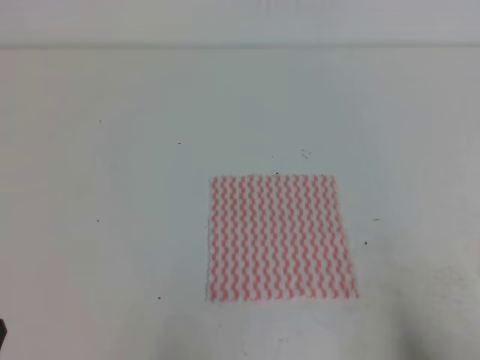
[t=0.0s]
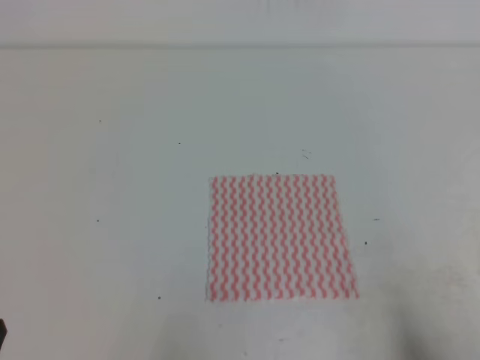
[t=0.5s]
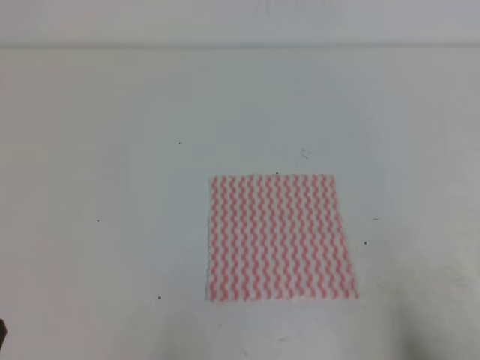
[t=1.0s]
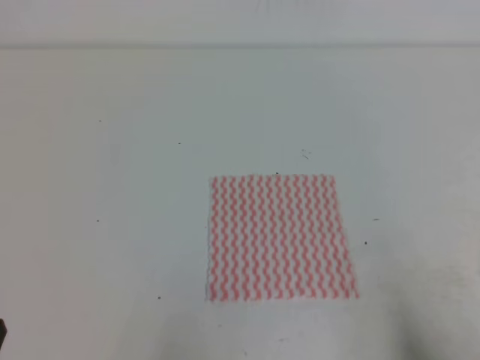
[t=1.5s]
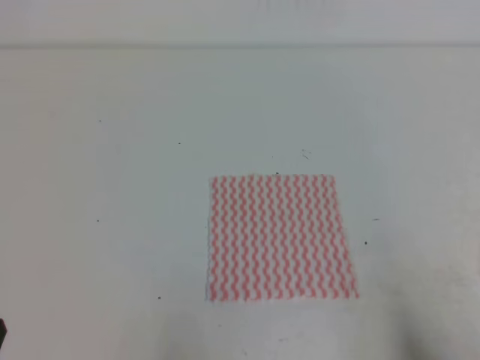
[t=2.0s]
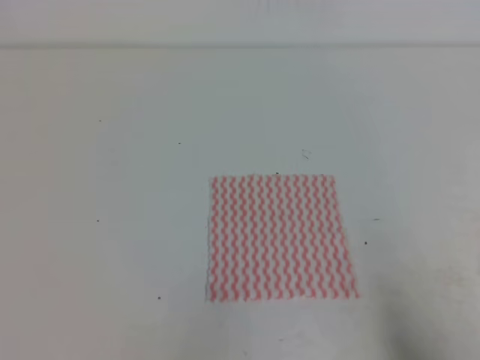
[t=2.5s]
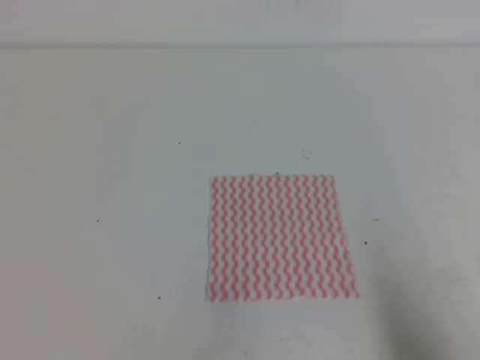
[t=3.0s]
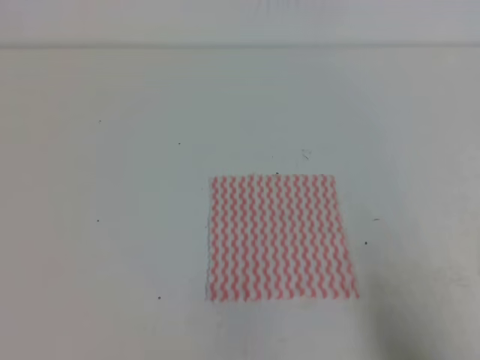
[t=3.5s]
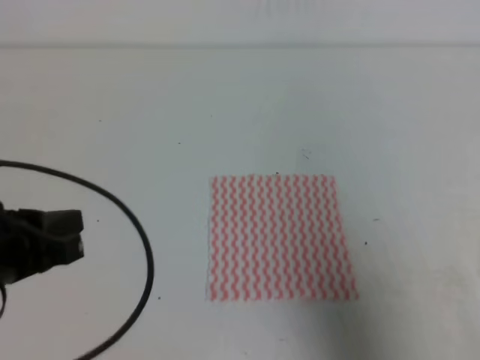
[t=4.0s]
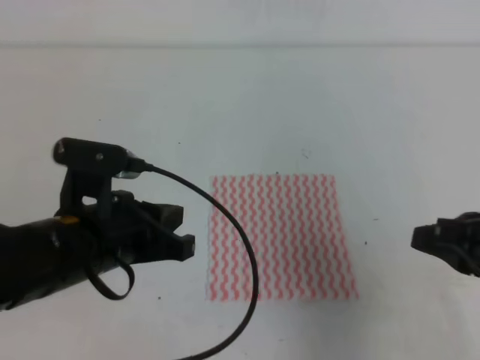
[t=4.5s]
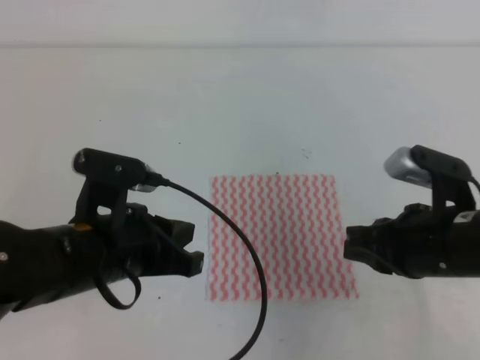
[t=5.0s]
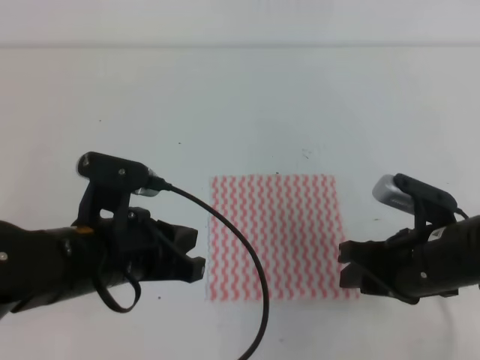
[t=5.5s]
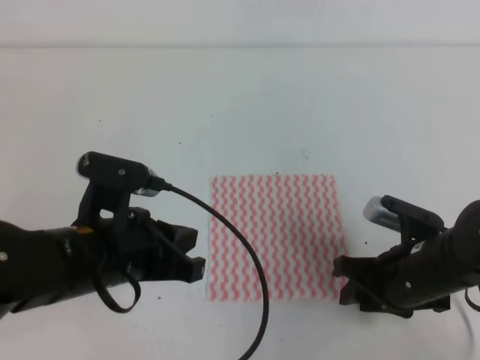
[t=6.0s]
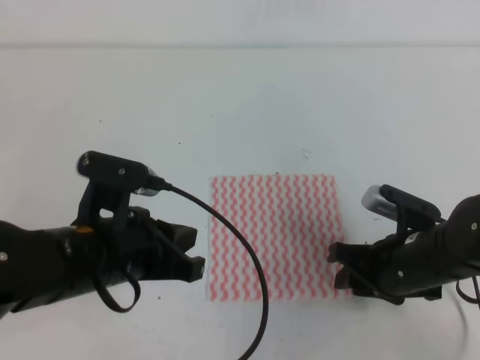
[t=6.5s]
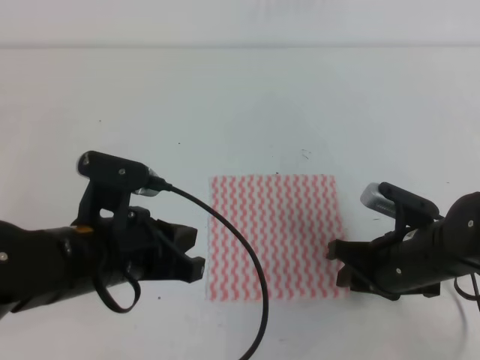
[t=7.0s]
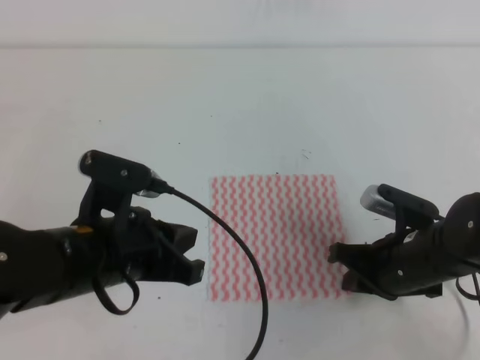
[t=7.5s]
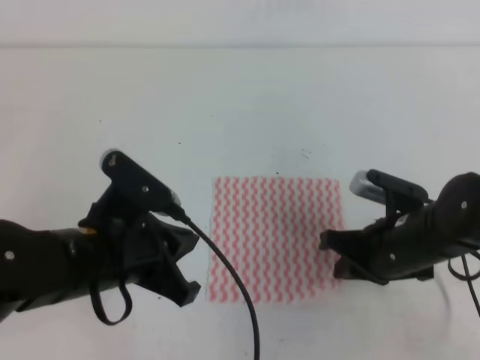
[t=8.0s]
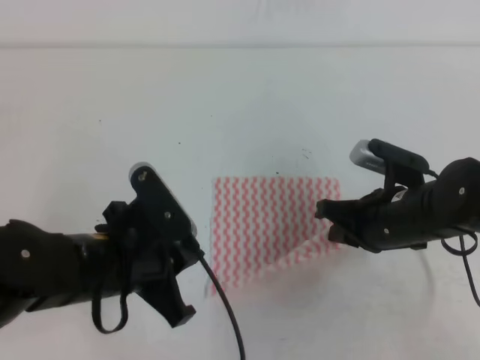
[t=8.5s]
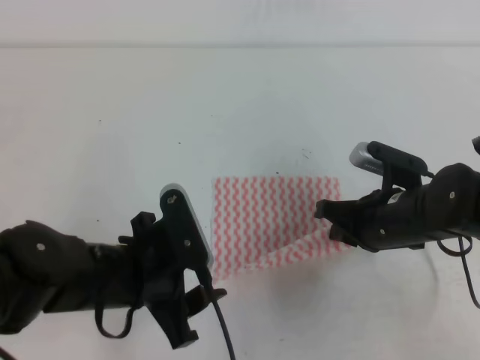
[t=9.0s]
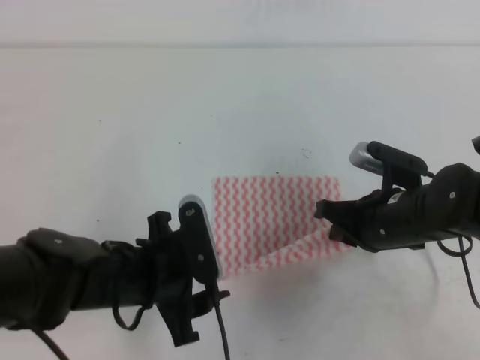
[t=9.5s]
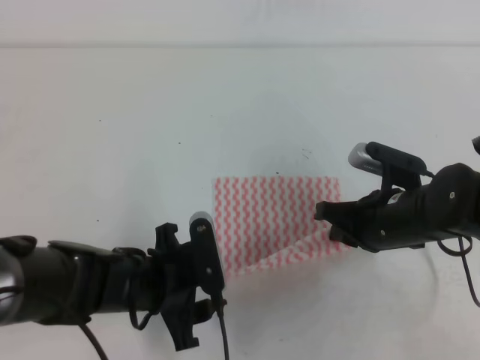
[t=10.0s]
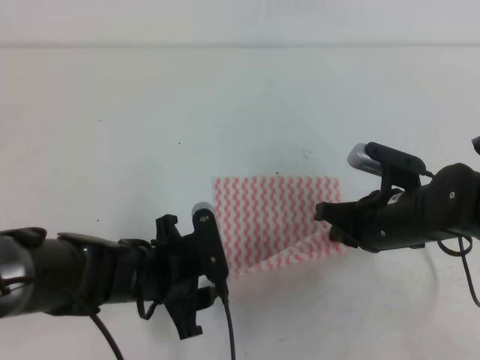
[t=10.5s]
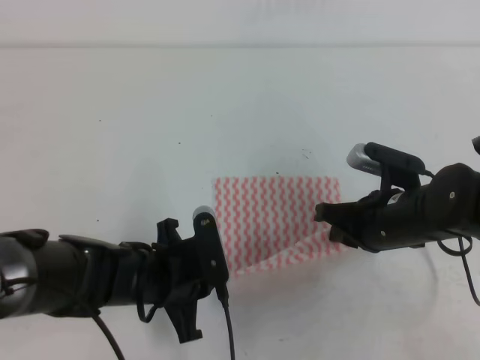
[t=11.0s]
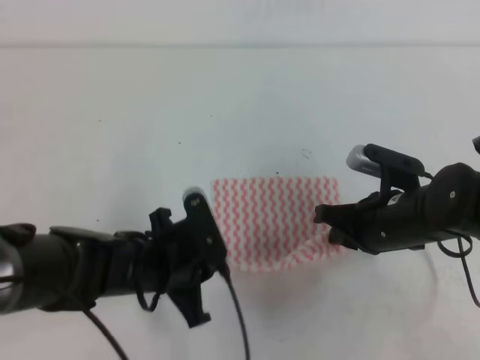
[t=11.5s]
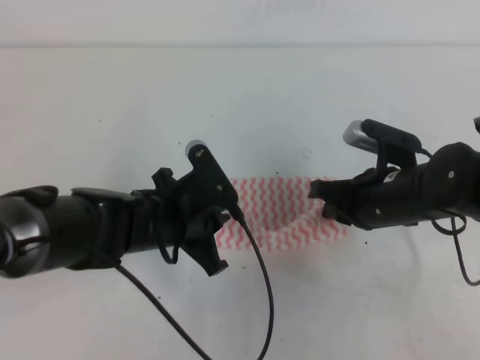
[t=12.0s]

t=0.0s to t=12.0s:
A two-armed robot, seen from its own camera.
t=0.0s to t=2.0s: Both grippers stay put.
t=2.0s to t=4.0s: The left gripper shifts about 15 cm forward and upward; the right gripper goes approximately 10 cm upward and forward.
t=4.0s to t=6.0s: The left gripper moves to the right, approximately 10 cm. The right gripper travels forward, downward and to the left by about 20 cm, and opens its fingers.
t=6.0s to t=8.0s: The right gripper closes up.
t=8.0s to t=10.0s: The left gripper heads downward, covering some 10 cm, and opens up.
t=10.0s to t=12.0s: The left gripper shifts by roughly 5 cm, and closes.

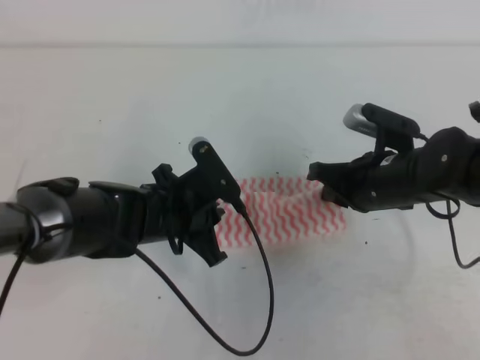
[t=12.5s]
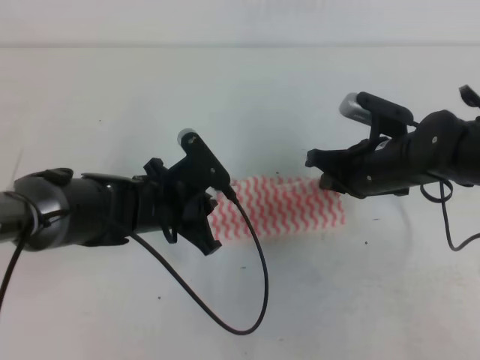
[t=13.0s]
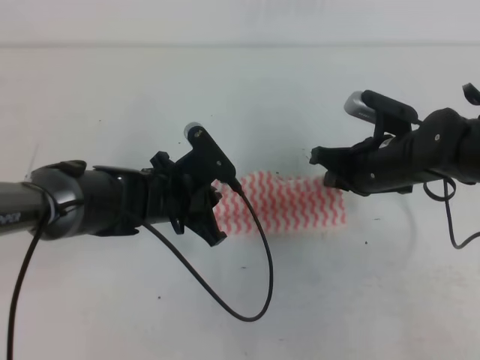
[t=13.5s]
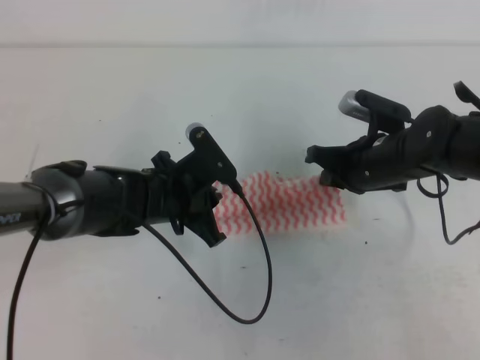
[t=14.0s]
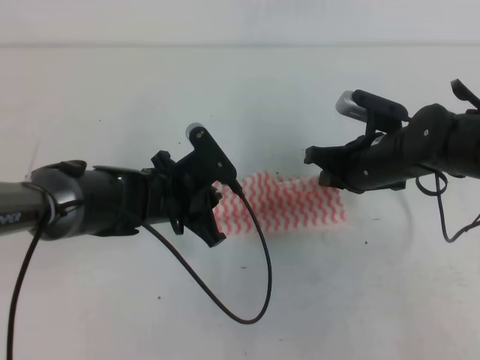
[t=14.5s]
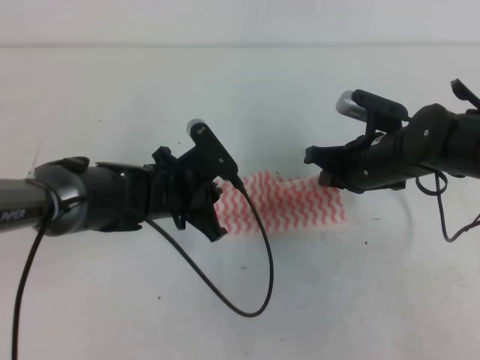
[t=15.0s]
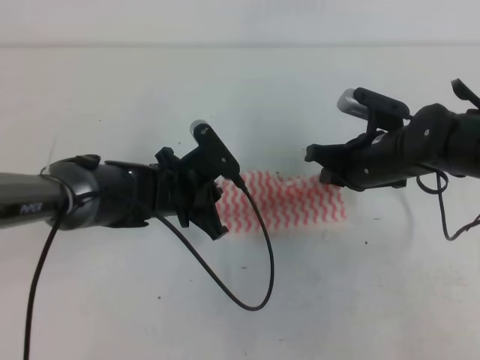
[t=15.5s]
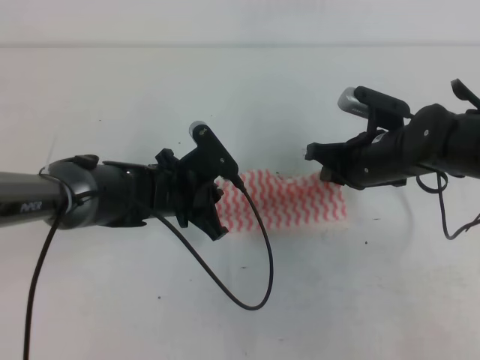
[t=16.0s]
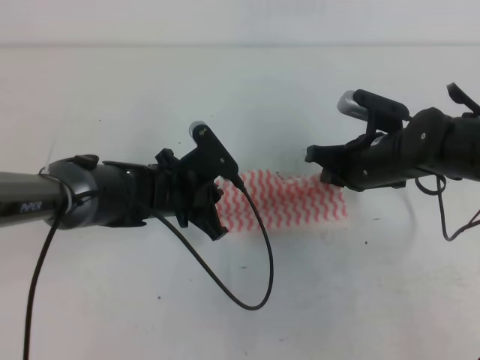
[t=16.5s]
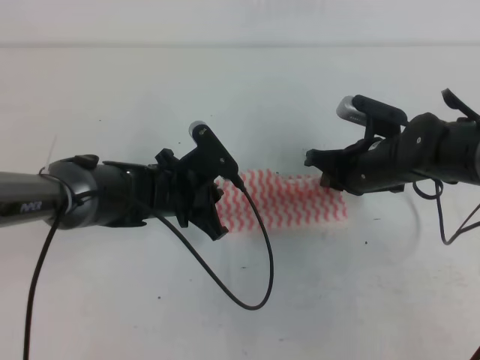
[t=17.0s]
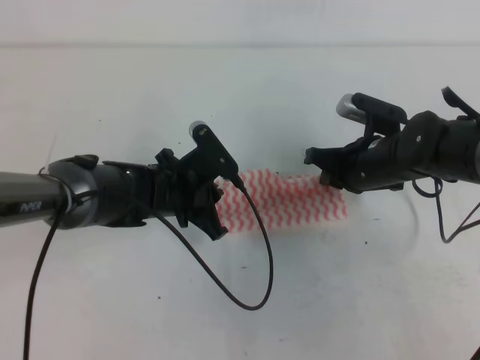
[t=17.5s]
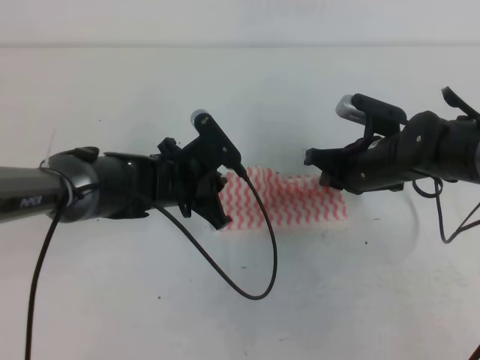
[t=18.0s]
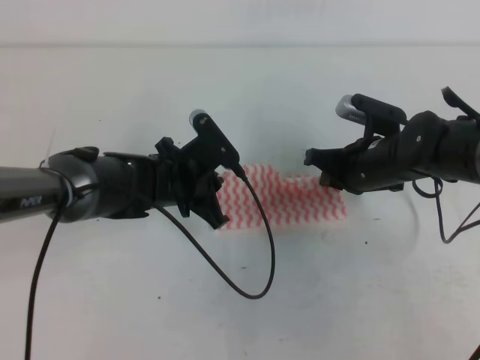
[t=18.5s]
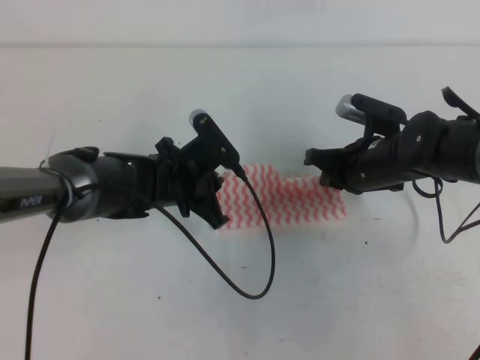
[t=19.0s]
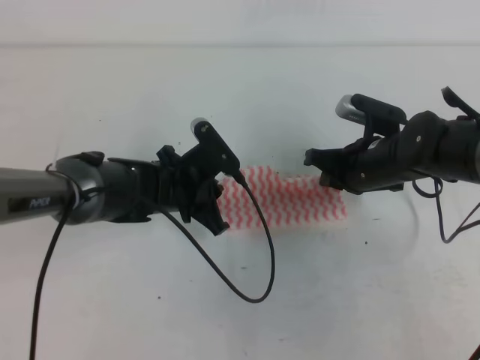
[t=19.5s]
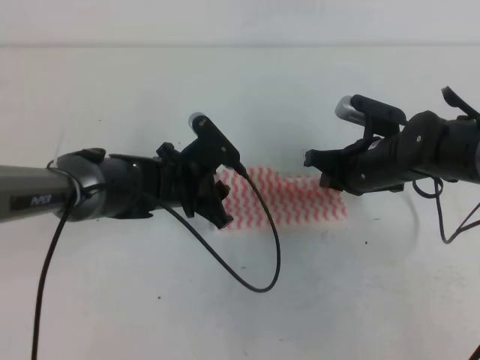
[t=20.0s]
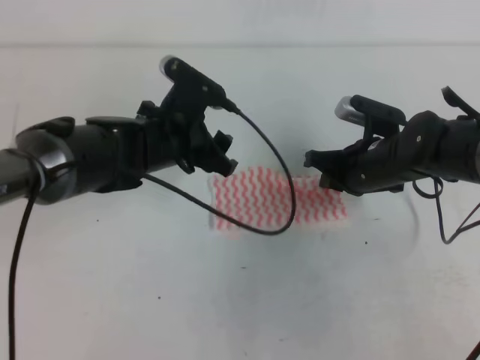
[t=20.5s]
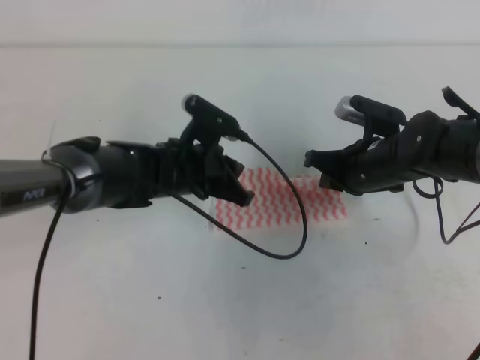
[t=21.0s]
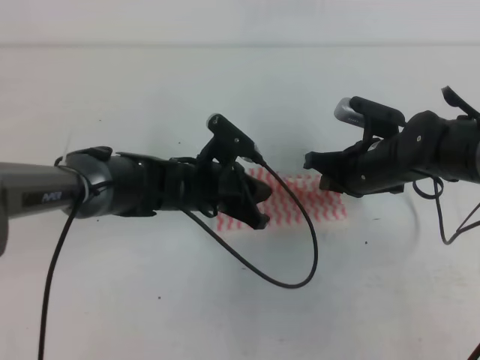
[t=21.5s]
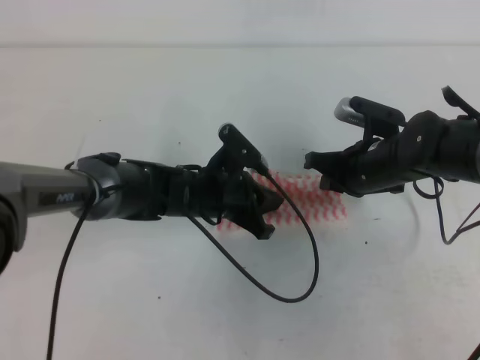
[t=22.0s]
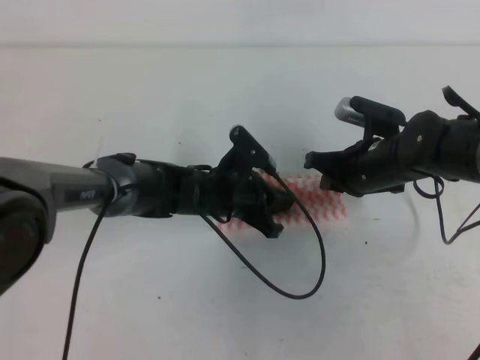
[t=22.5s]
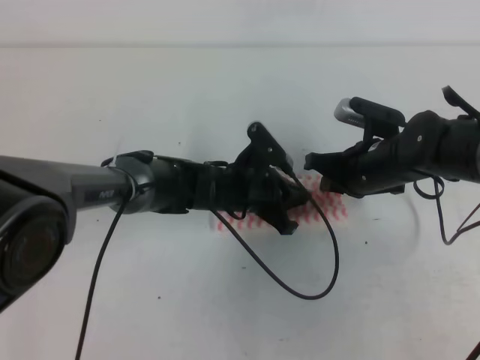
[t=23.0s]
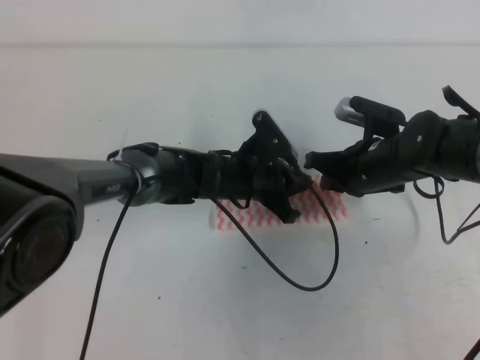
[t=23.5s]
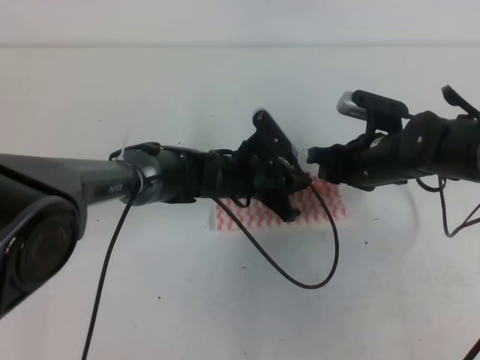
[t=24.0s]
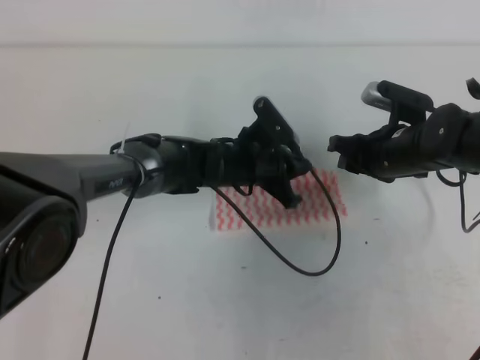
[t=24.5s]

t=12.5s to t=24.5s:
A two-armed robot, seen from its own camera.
t=12.5s to t=16.5s: The grippers stay close to where they were, moving slightly.
t=16.5s to t=18.5s: Both grippers stay put.
t=18.5s to t=20.5s: The left gripper opens up.
t=20.5s to t=22.5s: The left gripper moves downward and to the right, about 10 cm, and closes up.
t=22.5s to t=24.5s: The right gripper opens up.

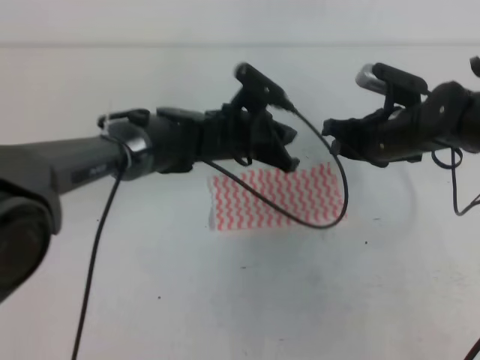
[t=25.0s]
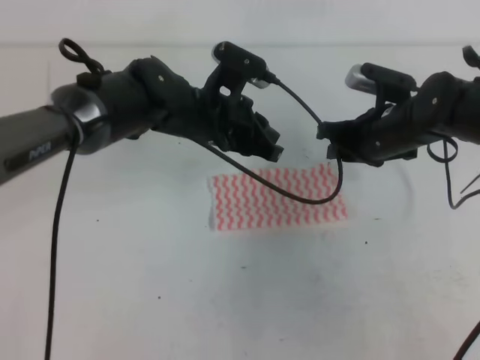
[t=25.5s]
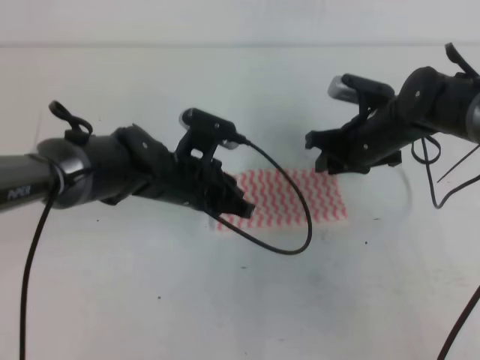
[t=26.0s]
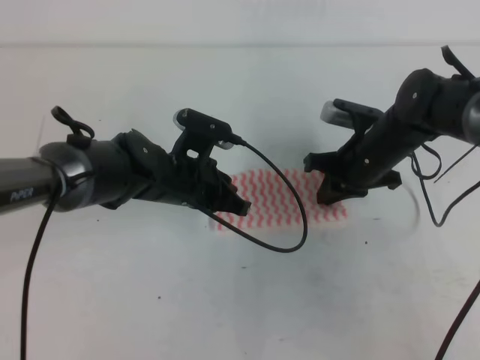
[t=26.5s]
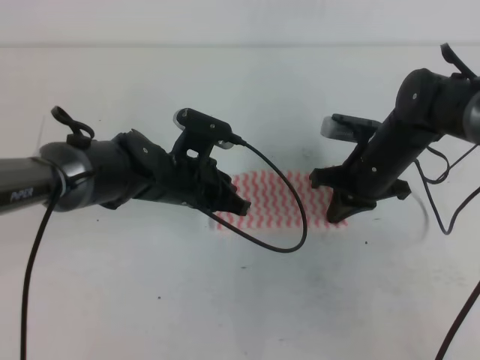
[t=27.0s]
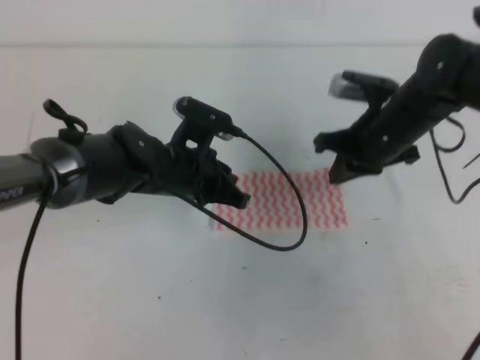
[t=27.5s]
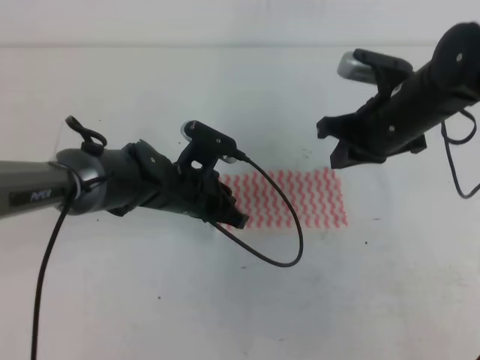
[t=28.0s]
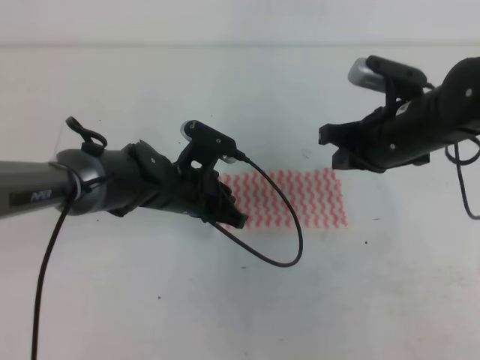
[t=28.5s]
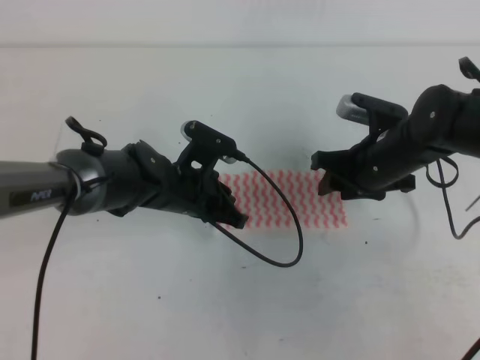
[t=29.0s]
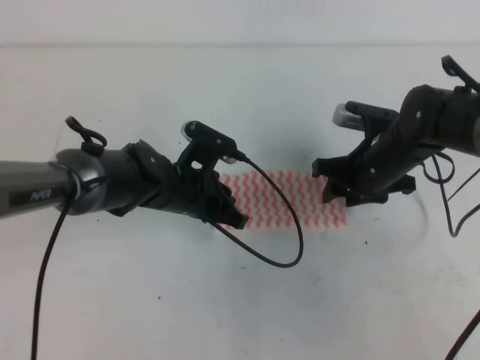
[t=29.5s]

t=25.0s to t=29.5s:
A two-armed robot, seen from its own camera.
t=25.0s to t=27.0s: The right gripper closes its fingers. Meanwhile the left gripper is displaced to the left and backward by some 10 cm.
t=27.0s to t=29.5s: The right gripper moves roughly 10 cm upward and comes back, and opens.
